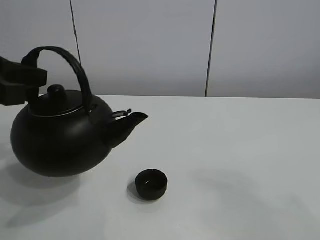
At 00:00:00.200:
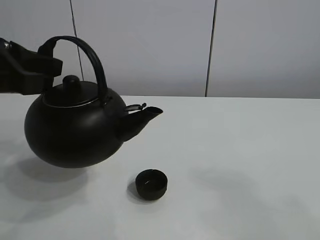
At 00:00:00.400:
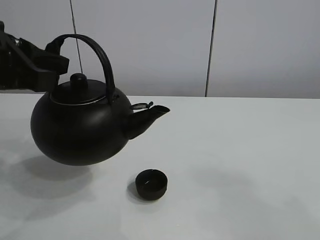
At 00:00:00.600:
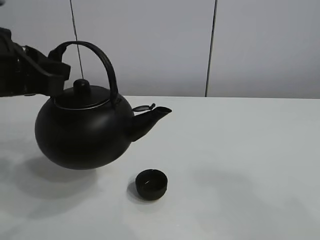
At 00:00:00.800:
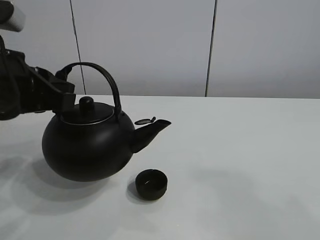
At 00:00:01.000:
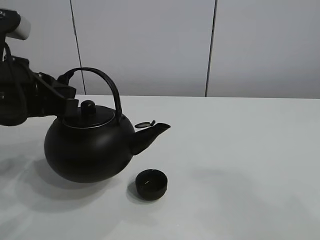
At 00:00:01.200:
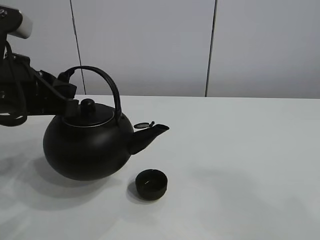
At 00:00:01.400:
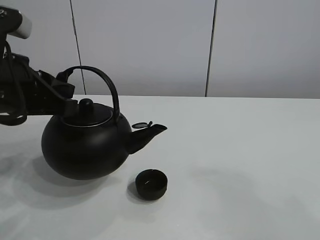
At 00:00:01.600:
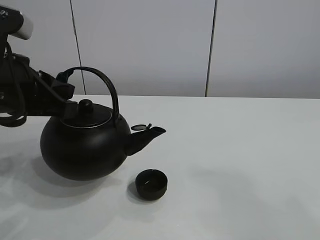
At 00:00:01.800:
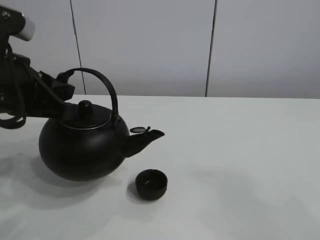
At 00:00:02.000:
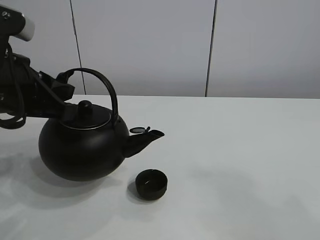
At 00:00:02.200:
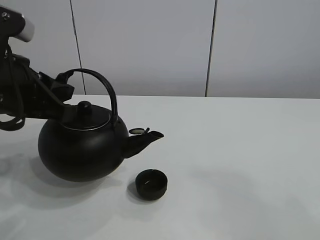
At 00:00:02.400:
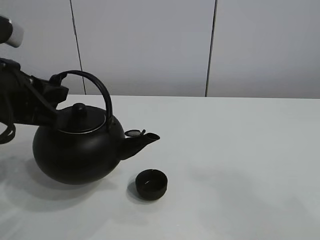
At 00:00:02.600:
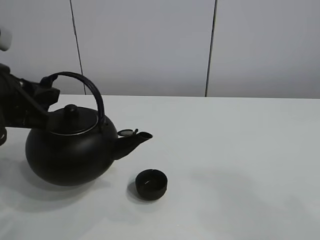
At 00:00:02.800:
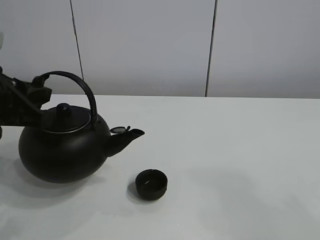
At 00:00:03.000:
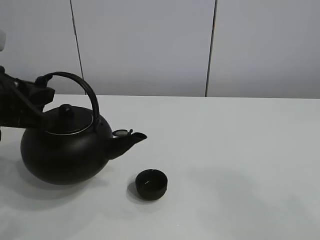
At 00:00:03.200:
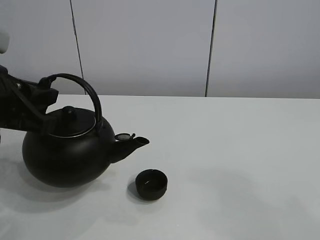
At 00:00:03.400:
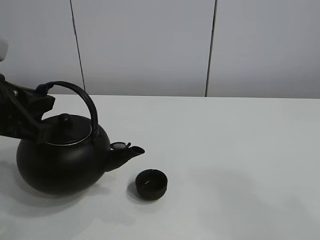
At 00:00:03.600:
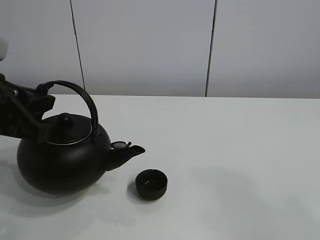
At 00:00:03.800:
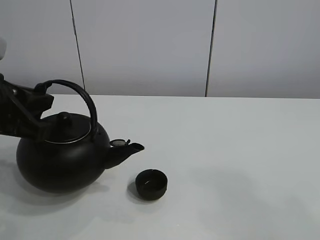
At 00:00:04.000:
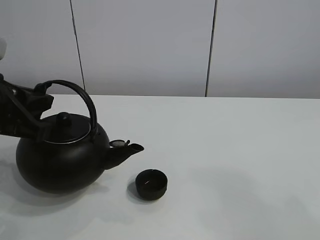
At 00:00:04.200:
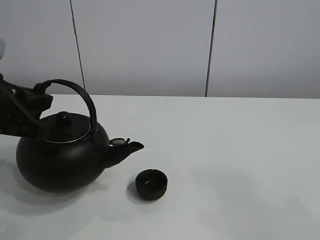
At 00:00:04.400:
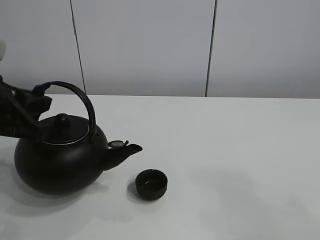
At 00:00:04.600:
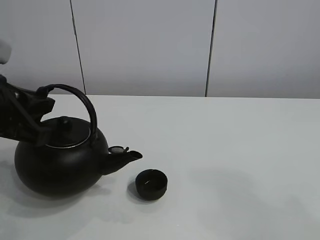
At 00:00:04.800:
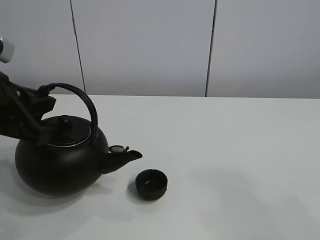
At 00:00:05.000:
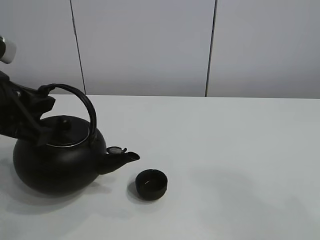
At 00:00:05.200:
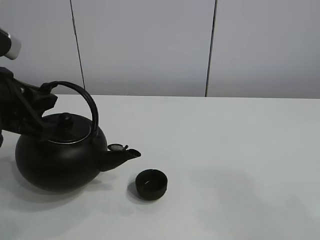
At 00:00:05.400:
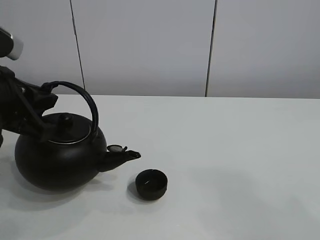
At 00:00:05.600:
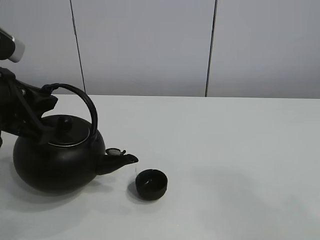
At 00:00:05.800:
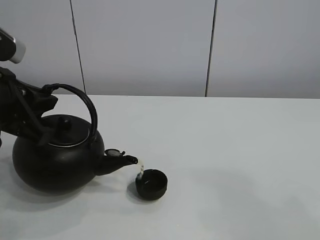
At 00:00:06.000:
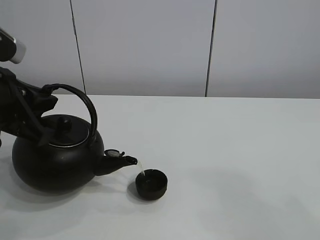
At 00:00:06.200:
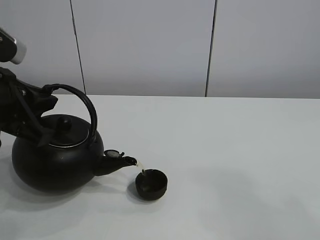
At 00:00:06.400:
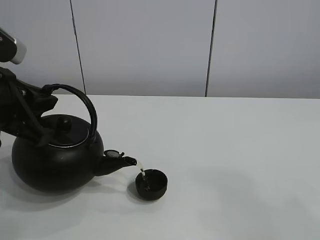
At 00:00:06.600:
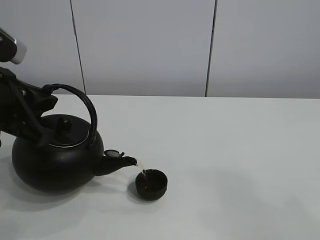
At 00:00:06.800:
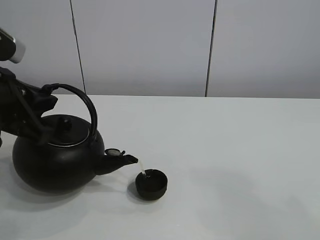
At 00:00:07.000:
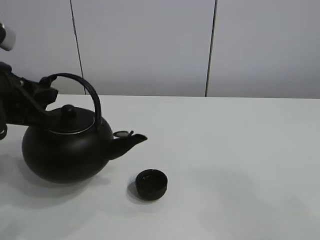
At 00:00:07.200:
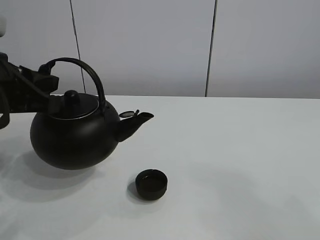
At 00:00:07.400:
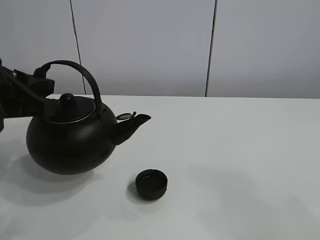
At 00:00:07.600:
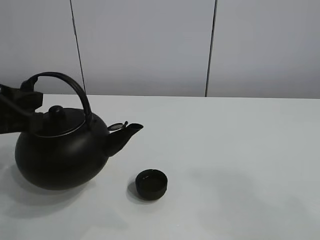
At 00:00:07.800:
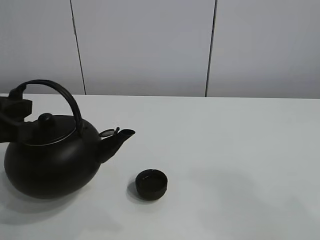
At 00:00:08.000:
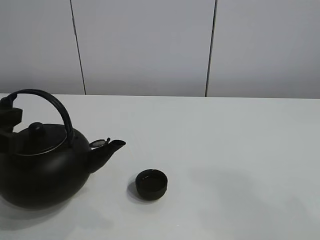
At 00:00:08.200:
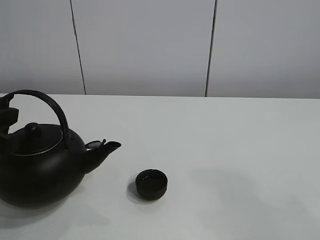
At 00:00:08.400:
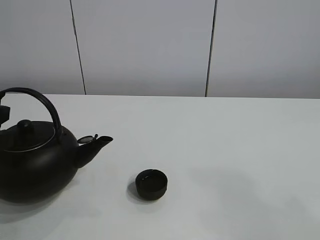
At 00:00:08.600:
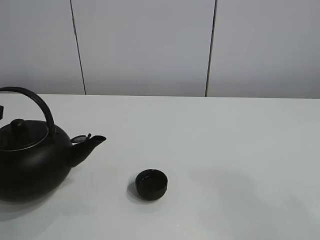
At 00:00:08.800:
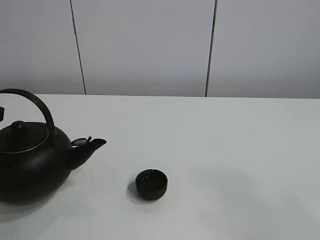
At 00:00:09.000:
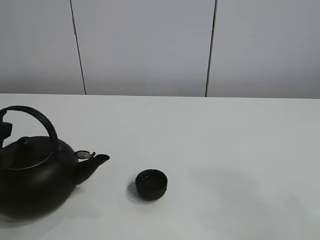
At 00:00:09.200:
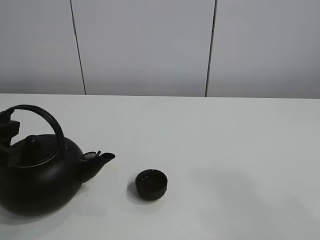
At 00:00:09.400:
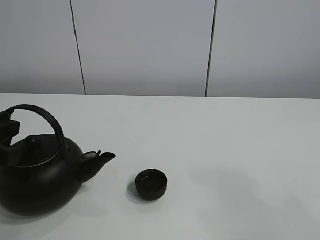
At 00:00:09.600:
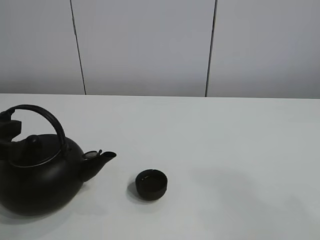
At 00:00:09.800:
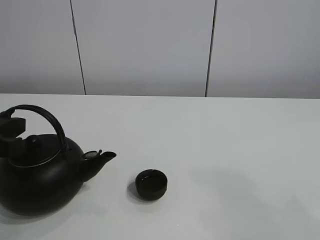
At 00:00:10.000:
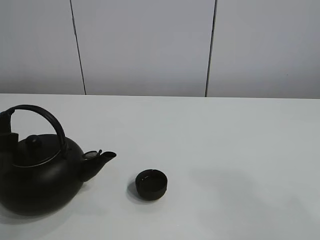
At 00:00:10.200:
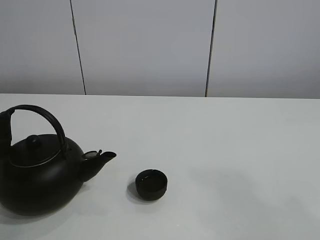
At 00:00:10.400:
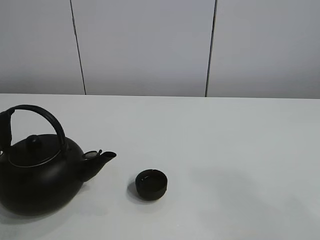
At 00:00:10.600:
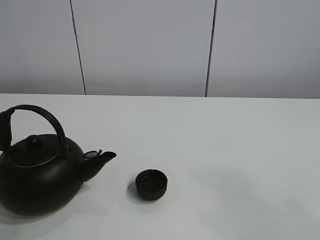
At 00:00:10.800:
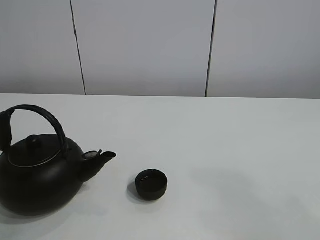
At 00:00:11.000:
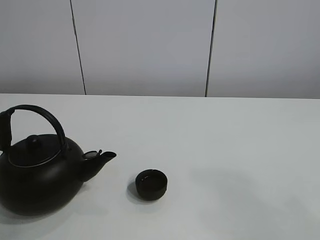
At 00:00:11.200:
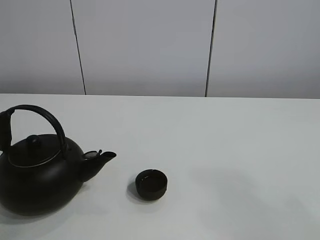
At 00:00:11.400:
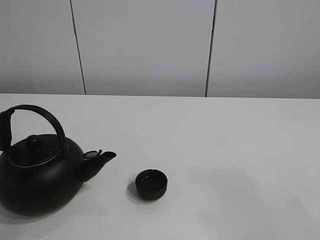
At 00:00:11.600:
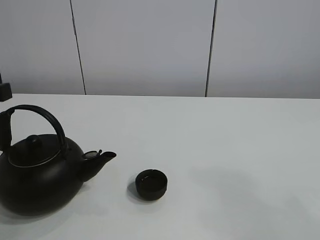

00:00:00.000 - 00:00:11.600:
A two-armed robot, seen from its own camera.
Task of the whole recording: pour tea into the teacup.
Step, 00:00:00.000 - 00:00:06.800: Pour tea into the teacup with the left gripper.
00:00:00.000 - 00:00:01.400: The left gripper shifts by roughly 5 cm.
00:00:01.400 - 00:00:07.200: The grippers make only small movements.
00:00:07.200 - 00:00:08.800: The left gripper goes about 5 cm to the left.
00:00:08.800 - 00:00:10.200: The left gripper opens its fingers.

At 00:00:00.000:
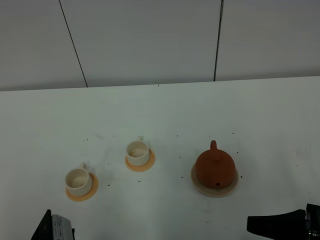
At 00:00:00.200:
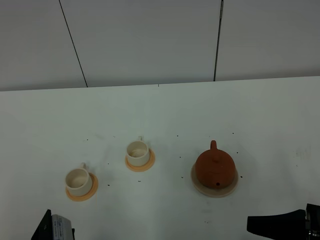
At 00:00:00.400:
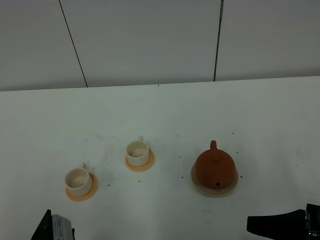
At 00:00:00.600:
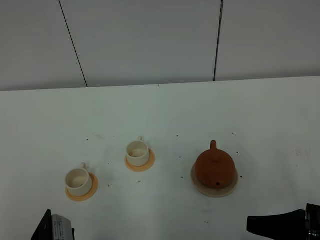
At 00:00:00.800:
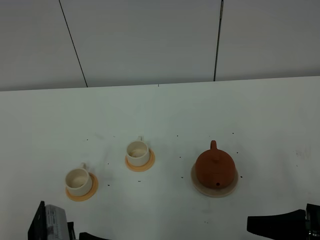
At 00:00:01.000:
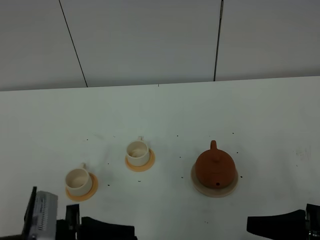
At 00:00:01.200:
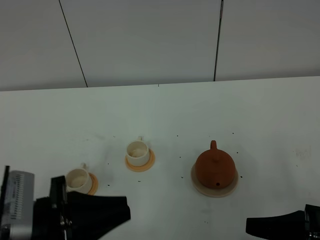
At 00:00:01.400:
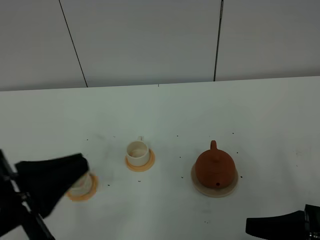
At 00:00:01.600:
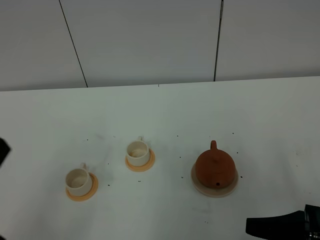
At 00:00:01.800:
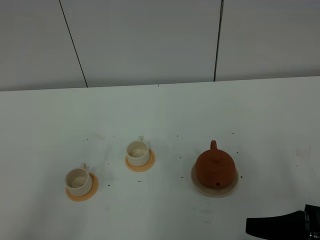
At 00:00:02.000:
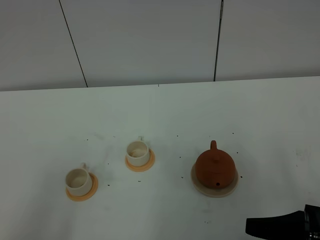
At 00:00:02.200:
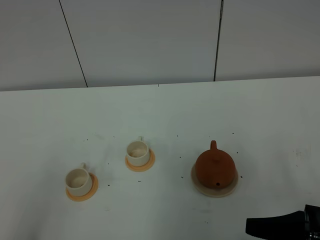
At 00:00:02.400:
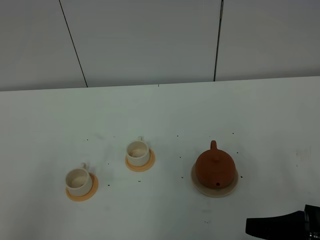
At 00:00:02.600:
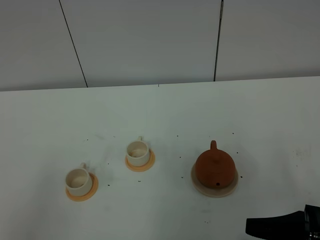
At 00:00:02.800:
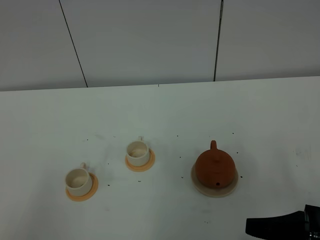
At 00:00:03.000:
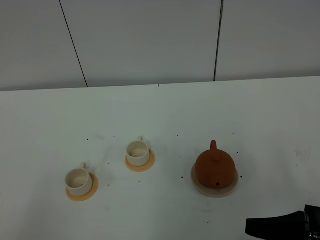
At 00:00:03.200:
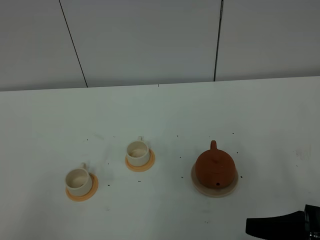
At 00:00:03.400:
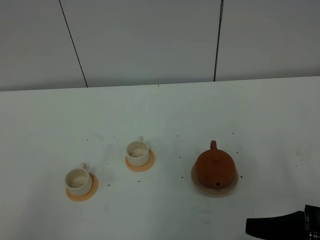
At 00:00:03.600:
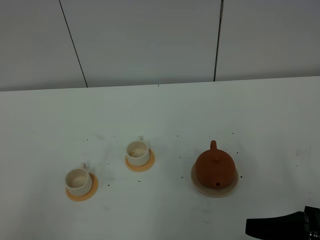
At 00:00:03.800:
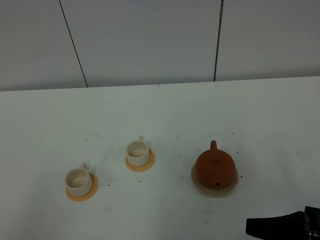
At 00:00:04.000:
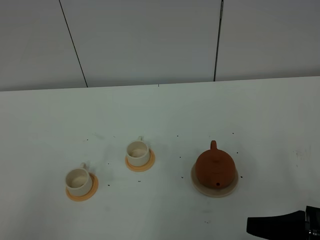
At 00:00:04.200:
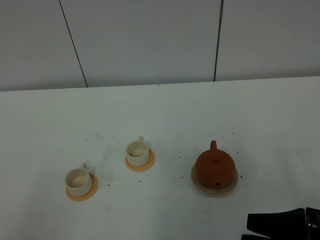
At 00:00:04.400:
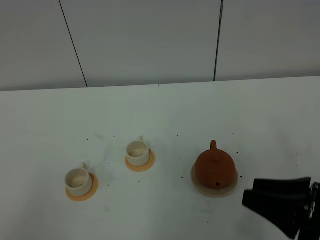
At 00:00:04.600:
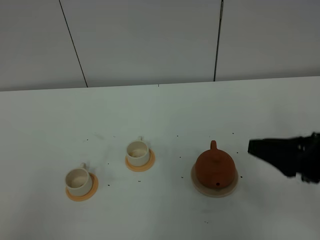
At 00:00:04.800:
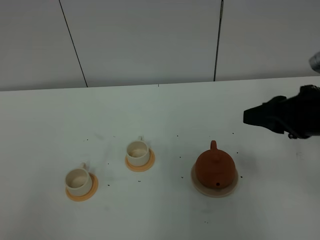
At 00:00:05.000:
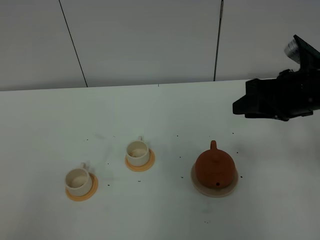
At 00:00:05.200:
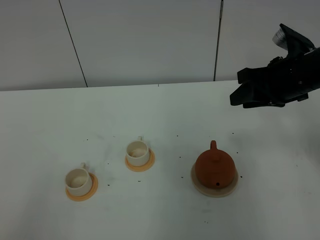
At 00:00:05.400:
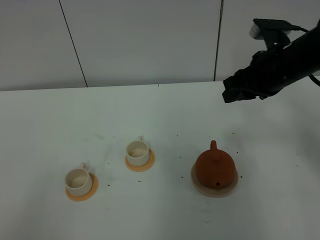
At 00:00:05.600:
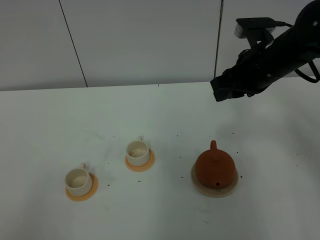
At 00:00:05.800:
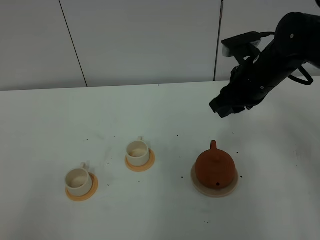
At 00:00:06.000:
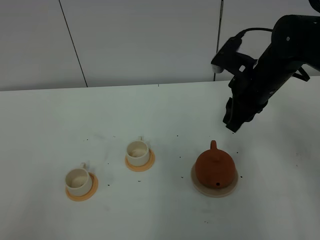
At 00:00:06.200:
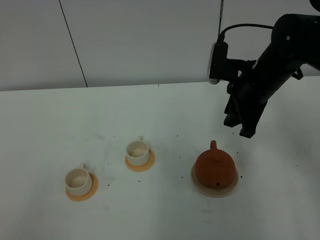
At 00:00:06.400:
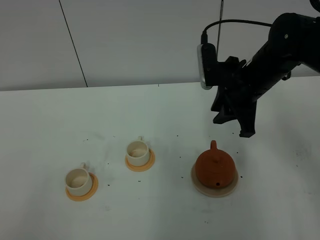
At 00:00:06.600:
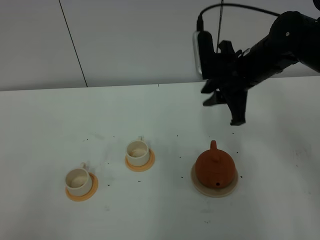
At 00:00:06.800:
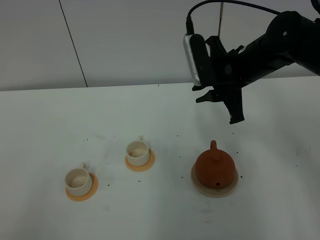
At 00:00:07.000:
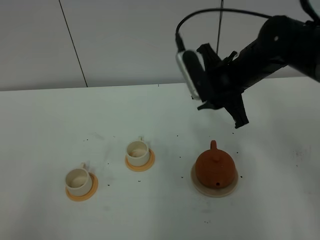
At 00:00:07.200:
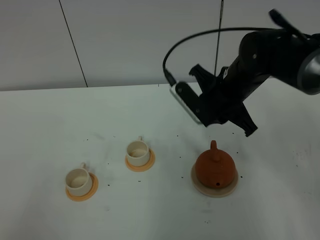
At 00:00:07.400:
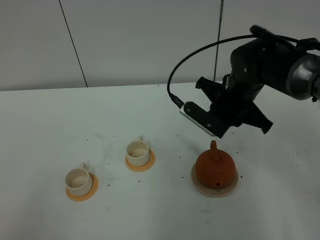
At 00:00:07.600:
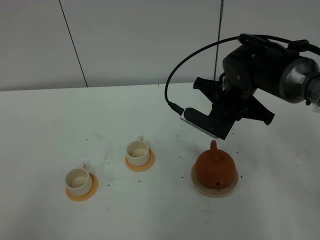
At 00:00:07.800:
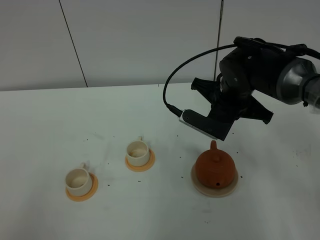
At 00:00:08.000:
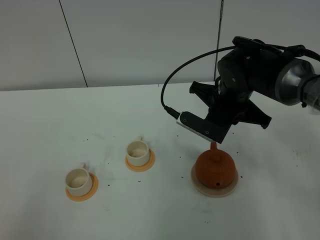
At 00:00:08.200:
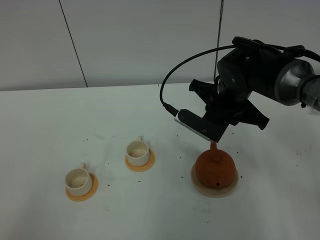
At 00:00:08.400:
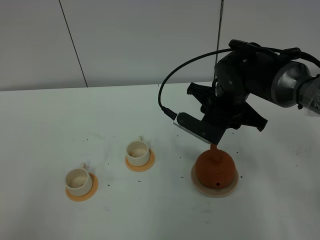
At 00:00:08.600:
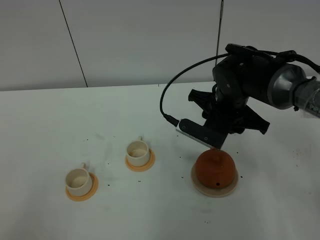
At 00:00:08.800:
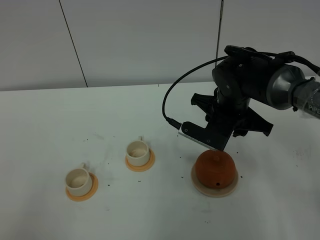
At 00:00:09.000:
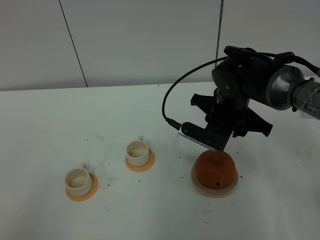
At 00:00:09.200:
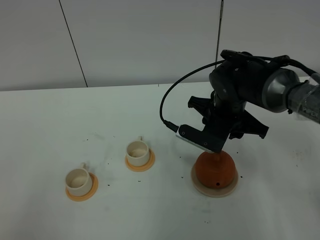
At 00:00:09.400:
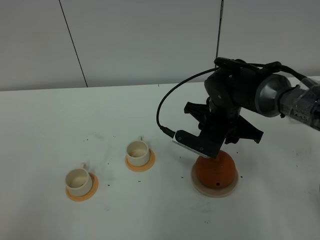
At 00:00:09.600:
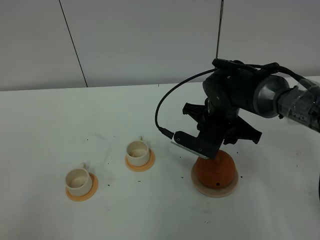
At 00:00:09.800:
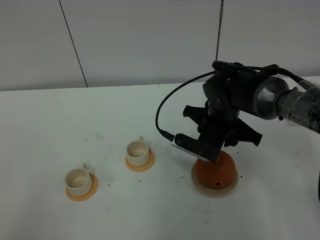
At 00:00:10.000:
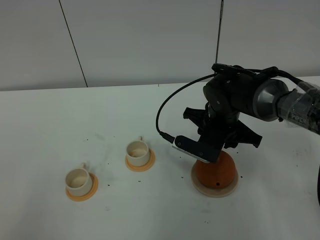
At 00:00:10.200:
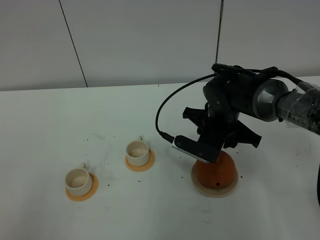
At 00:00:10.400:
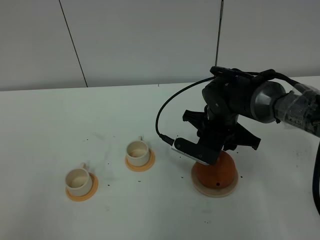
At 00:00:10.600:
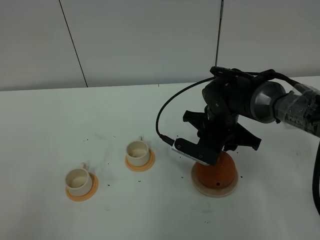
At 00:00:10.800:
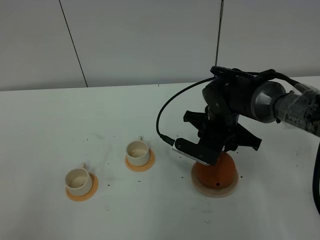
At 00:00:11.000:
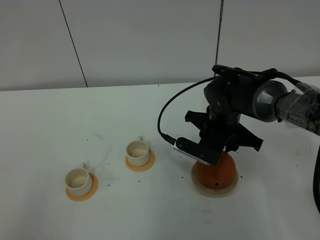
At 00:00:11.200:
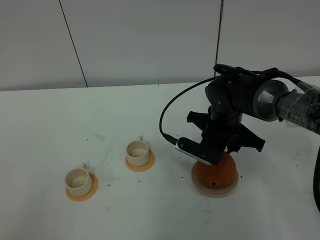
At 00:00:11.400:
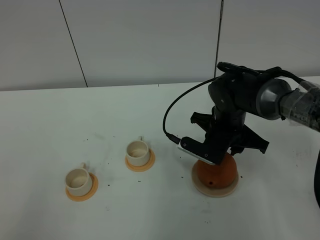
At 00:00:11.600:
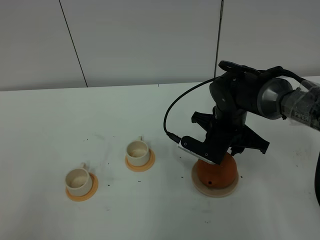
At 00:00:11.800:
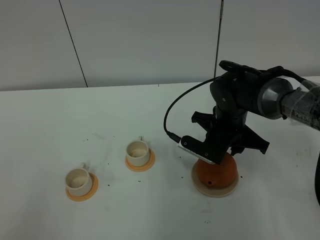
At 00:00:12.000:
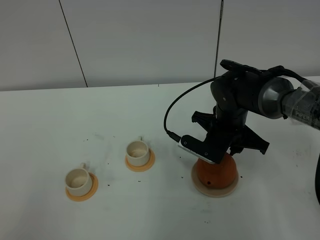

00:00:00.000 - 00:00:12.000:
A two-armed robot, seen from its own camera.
Task of the whole recording: grasp the brown teapot and pour the tea into the two white teacups one by one, put the brown teapot back in its original place.
00:00:00.000 - 00:00:01.600: The left gripper is displaced upward by some 15 cm, and closes its fingers.
00:00:03.000 - 00:00:04.400: The grippers move only a little.
00:00:04.400 - 00:00:06.000: The right gripper moves forward, approximately 25 cm, and closes up.
00:00:06.000 - 00:00:07.600: The right gripper changes place by some 5 cm, and closes.
00:00:07.600 - 00:00:09.000: The right gripper opens its fingers.
00:00:09.000 - 00:00:12.000: The grippers move only a little.
